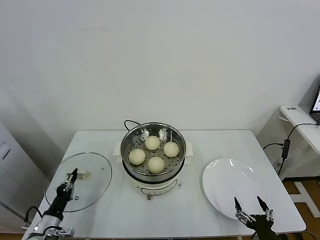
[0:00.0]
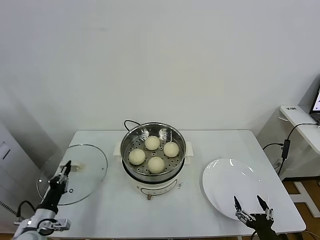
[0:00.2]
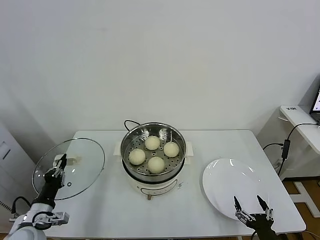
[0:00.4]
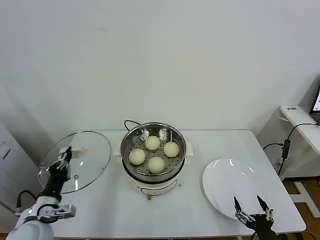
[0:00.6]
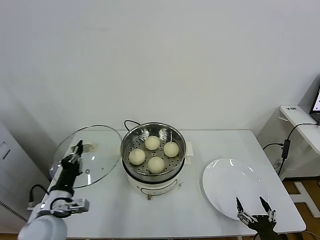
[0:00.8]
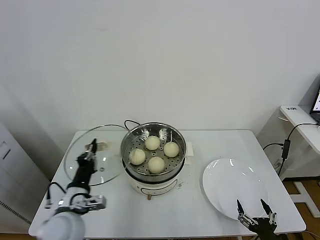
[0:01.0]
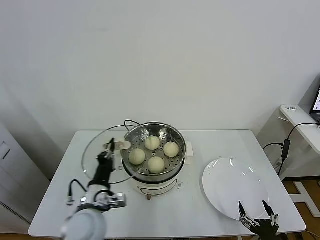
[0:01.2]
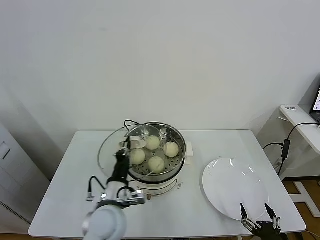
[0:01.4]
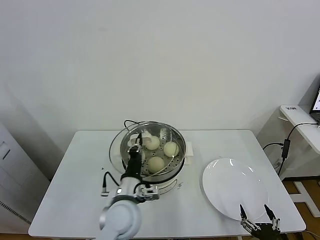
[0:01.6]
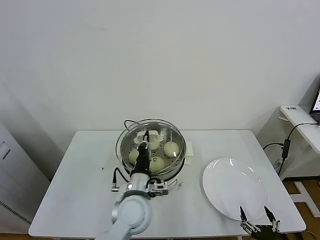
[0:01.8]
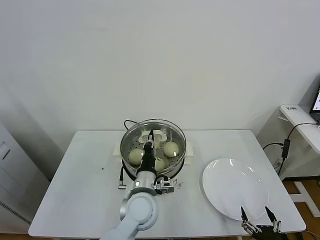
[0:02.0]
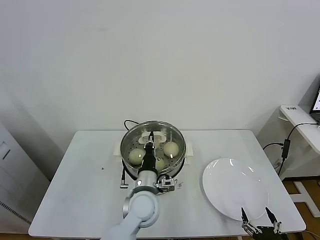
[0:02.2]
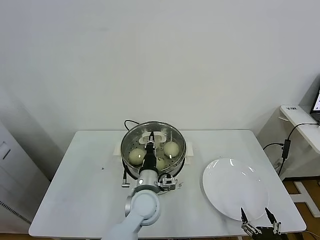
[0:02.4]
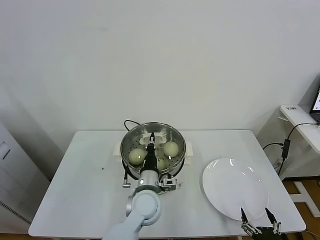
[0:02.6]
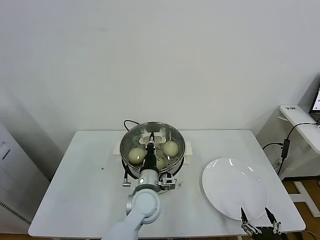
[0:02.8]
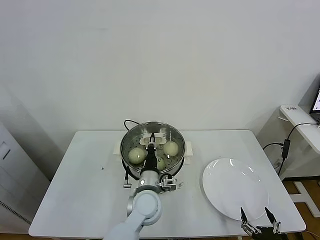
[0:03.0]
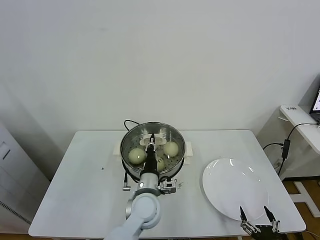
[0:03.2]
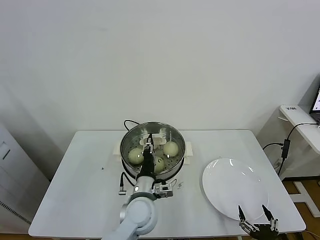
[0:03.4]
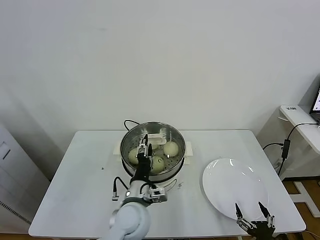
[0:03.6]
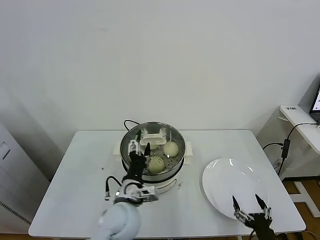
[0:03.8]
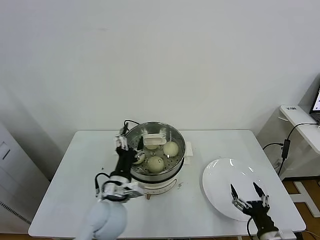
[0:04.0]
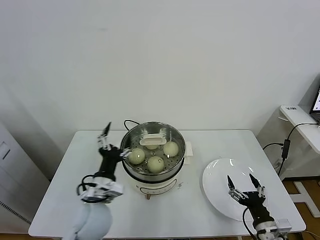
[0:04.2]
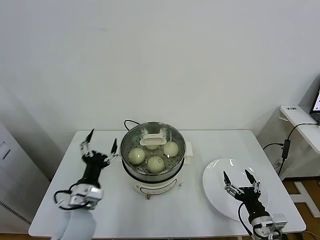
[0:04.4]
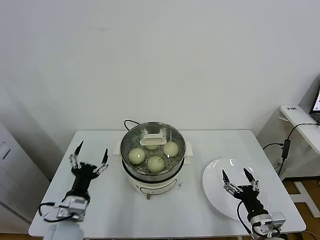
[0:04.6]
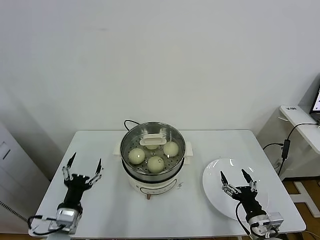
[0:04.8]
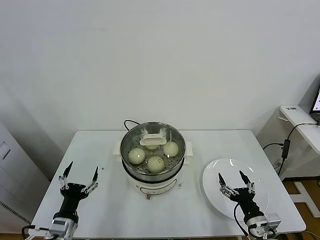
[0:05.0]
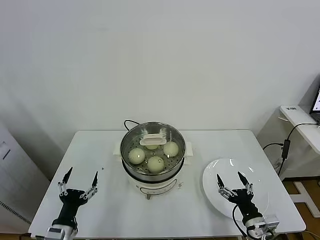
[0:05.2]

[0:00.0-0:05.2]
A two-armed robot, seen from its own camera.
Task of the whole recording: take steamed baozi put them in steamer.
Step, 0:00.0 to 0:04.0: Place the pot lid on the steamer with left gripper.
0:00.0 to 0:01.8: The left gripper heads to the right and upward, covering approximately 35 cm.
0:03.4 to 0:05.2: The right gripper heads forward, covering approximately 10 cm. The left gripper is displaced to the left and backward by roughly 25 cm, and opens.

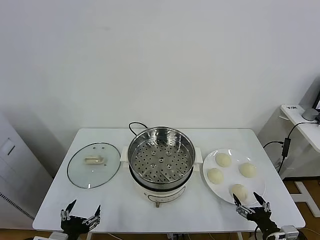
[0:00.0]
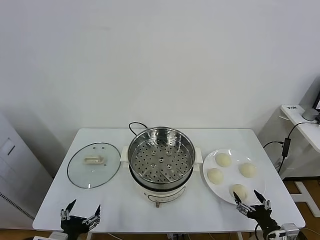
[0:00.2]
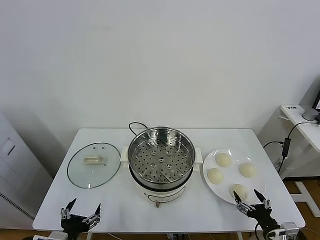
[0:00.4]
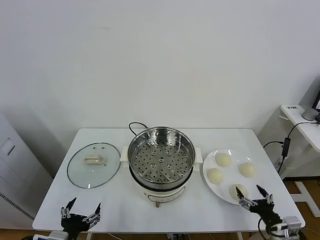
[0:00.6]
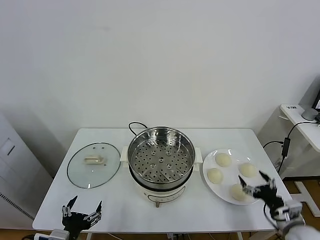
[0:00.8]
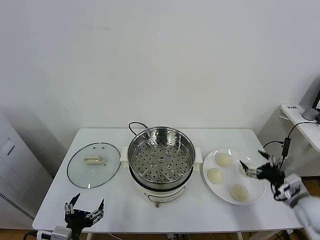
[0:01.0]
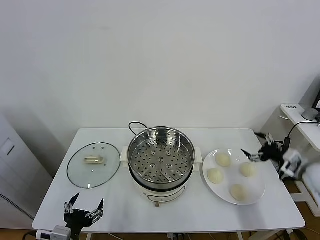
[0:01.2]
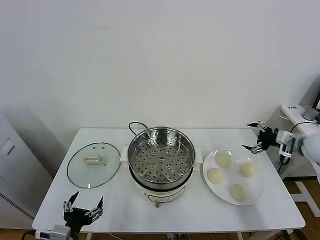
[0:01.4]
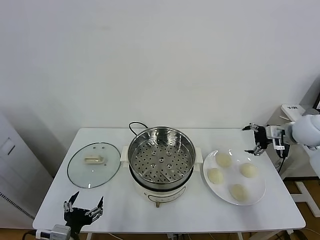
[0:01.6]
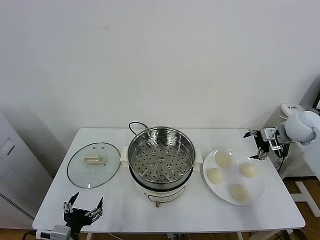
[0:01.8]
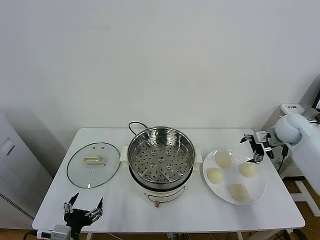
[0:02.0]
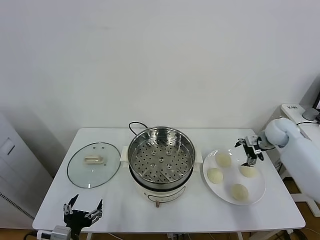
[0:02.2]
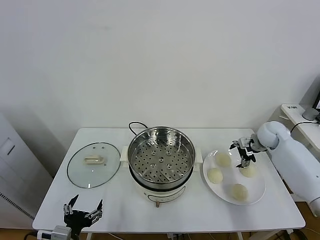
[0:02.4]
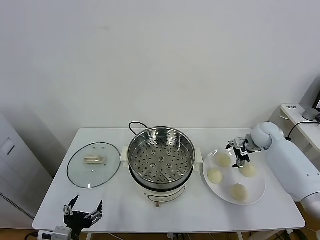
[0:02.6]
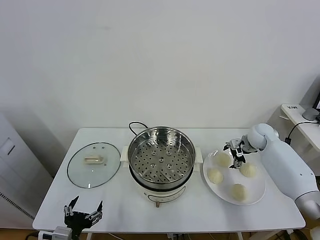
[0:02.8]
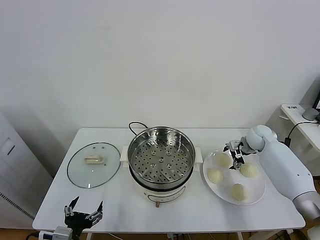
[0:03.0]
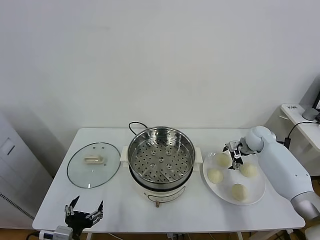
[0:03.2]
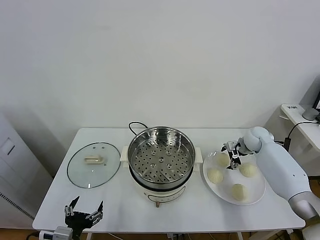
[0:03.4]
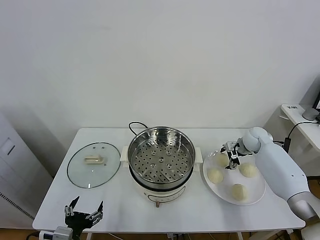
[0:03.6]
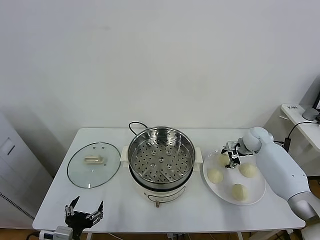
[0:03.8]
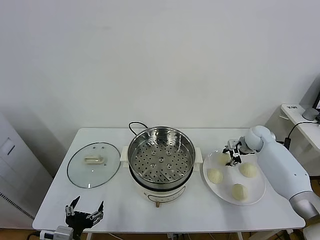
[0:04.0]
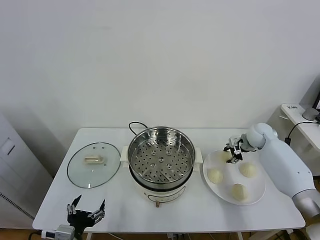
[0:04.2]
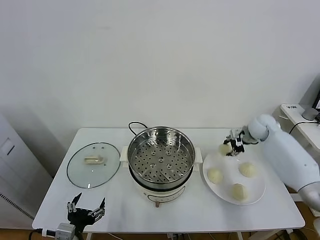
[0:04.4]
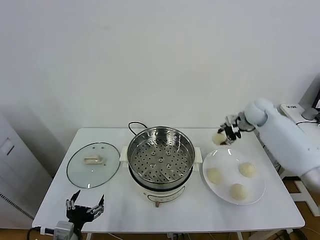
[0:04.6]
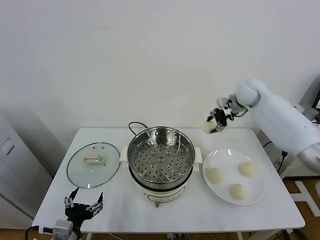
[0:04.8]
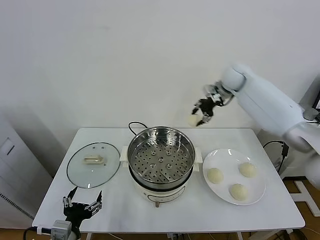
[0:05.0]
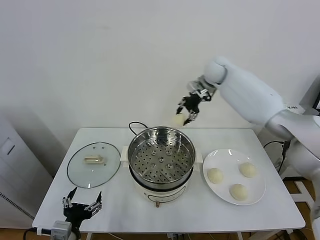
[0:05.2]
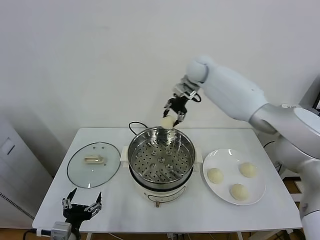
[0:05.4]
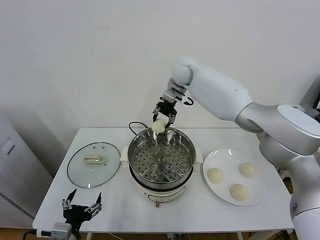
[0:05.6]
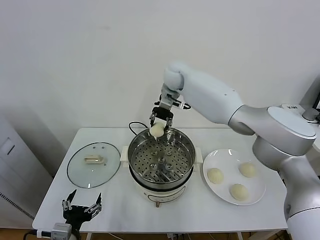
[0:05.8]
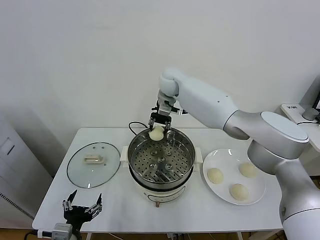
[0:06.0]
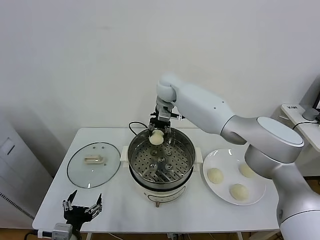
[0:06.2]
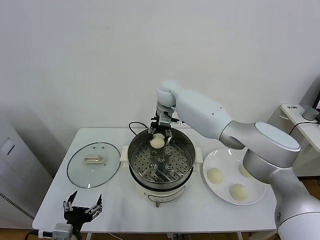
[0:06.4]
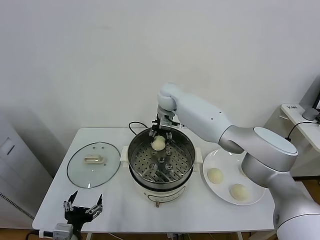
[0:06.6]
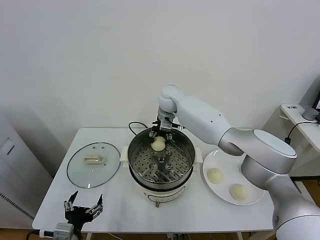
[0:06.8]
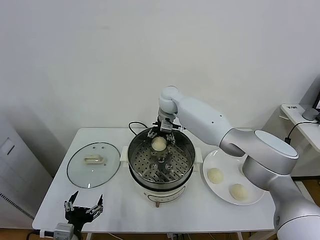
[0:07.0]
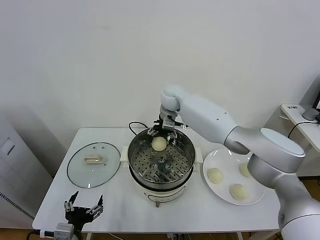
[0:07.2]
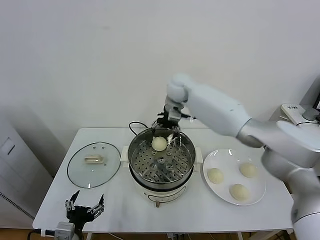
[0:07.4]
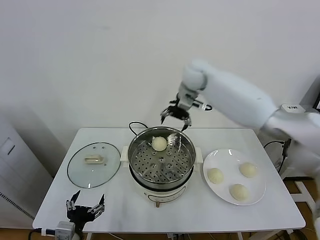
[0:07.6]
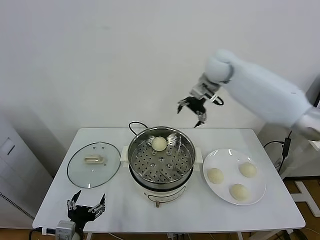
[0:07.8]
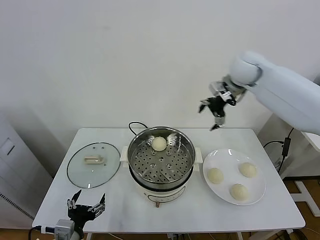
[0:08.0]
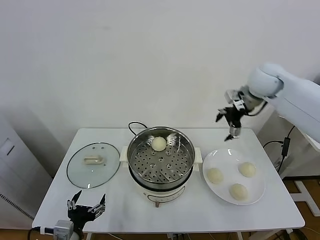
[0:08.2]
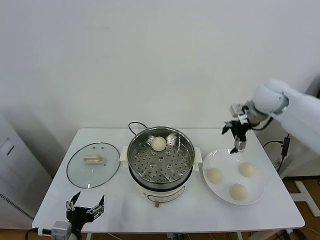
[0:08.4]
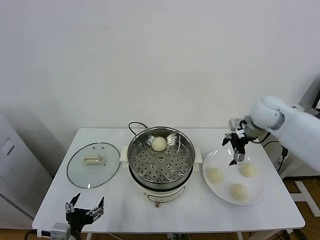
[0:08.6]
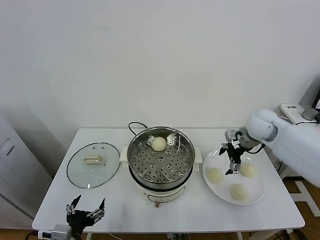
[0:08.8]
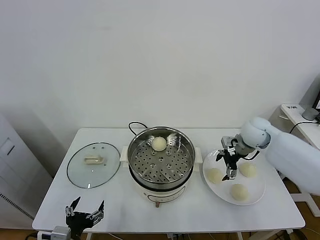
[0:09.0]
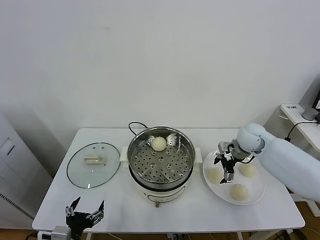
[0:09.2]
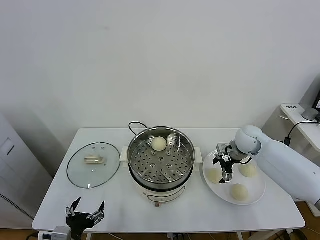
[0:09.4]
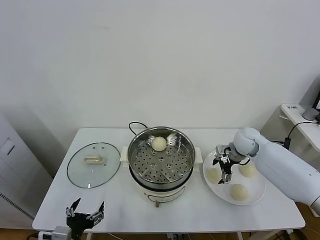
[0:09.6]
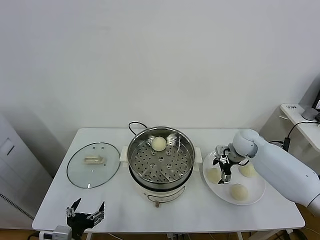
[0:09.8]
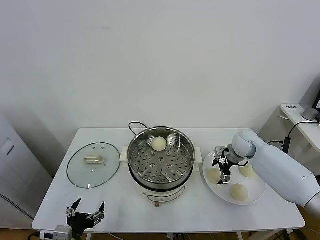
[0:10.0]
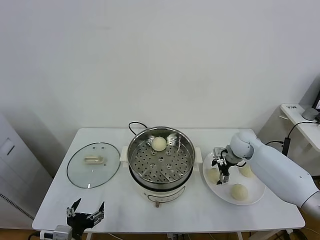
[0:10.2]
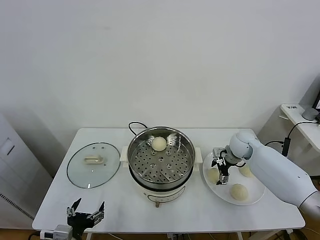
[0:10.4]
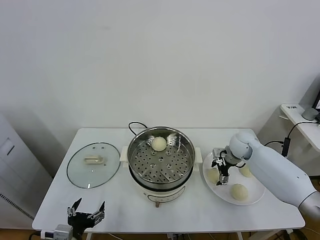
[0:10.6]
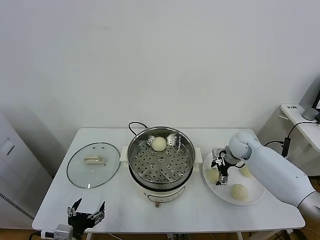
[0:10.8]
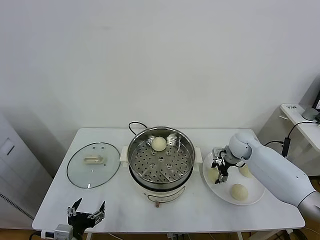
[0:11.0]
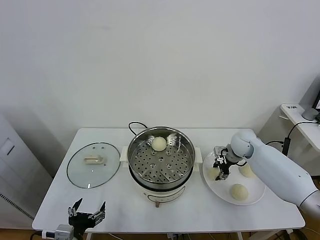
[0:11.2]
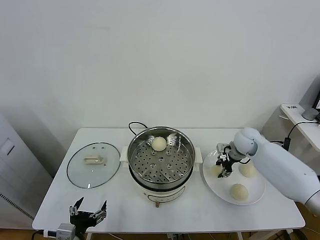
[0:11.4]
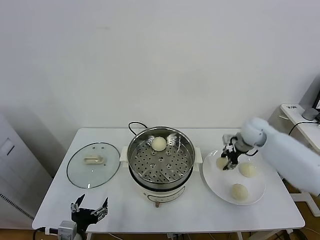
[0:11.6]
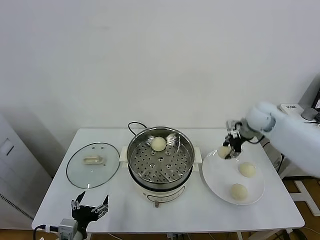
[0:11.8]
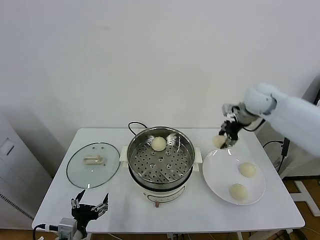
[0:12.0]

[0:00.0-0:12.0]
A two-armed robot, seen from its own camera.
Task of the whole recording: take steamed baozi put them in steamer.
Step, 0:00.0 to 0:03.8: Grasp the baozi in the plate with right gripper.
Step, 0:04.0 to 0:07.2: Place the baozi on the steamer with right gripper.
Step, 0:07.4 to 0:11.0: Grasp the baozi in the plate with right gripper.
0:01.6 to 0:03.0: The right gripper travels downward, forward and to the left by roughly 20 cm.
0:03.0 to 0:04.4: The right gripper heads upward, covering approximately 5 cm, and closes up.
0:04.4 to 0:06.0: The right gripper is displaced to the left and upward by roughly 40 cm.
0:06.0 to 0:07.6: The right gripper shifts approximately 10 cm to the right and upward, and opens.
0:07.6 to 0:09.0: The right gripper travels to the right, downward and backward by approximately 30 cm.
0:09.0 to 0:10.4: The right gripper shifts some 10 cm downward.
0:10.4 to 0:12.0: The right gripper moves upward, roughly 20 cm, and closes up.

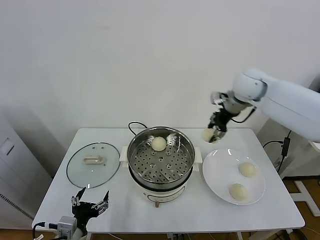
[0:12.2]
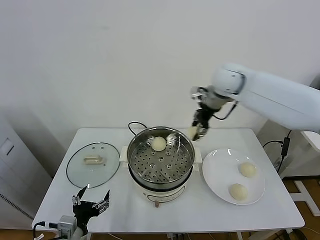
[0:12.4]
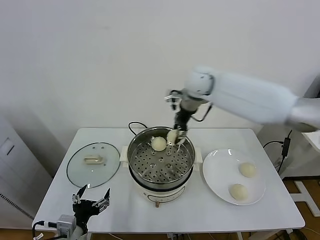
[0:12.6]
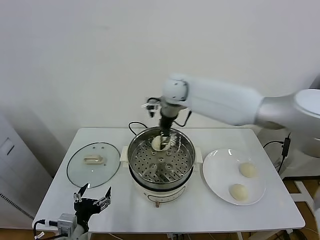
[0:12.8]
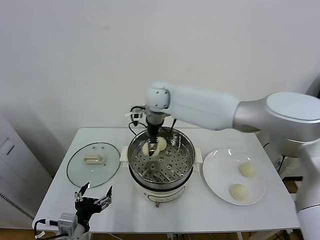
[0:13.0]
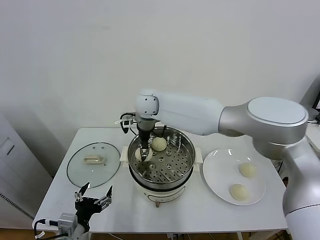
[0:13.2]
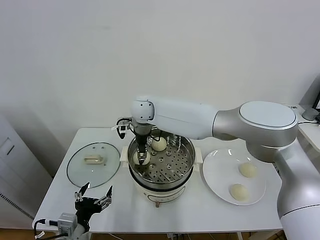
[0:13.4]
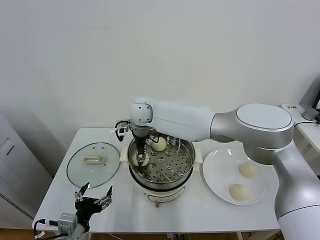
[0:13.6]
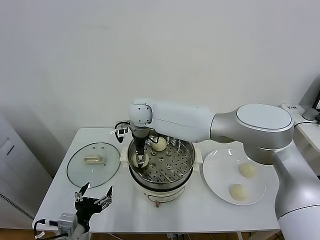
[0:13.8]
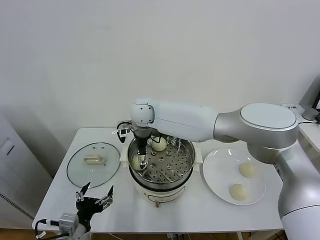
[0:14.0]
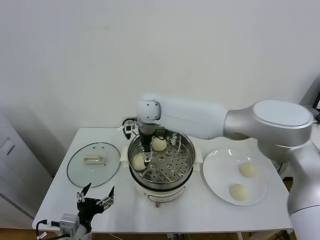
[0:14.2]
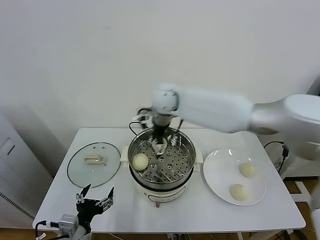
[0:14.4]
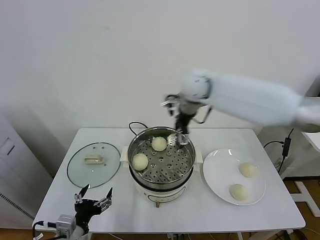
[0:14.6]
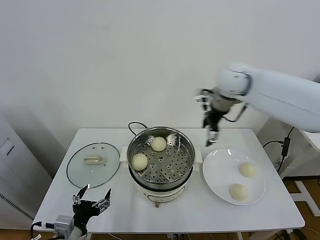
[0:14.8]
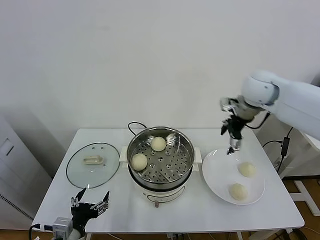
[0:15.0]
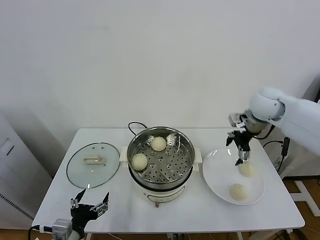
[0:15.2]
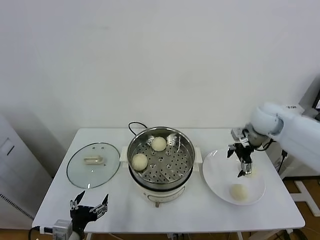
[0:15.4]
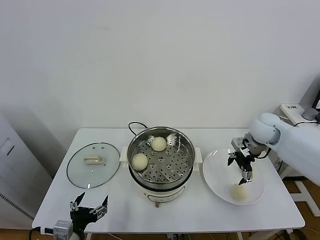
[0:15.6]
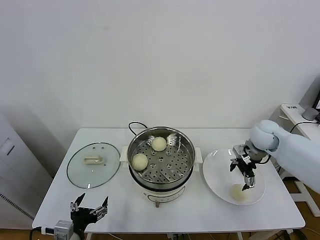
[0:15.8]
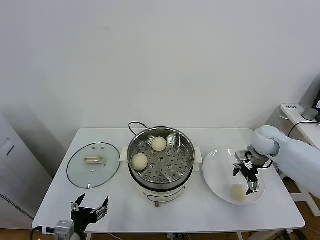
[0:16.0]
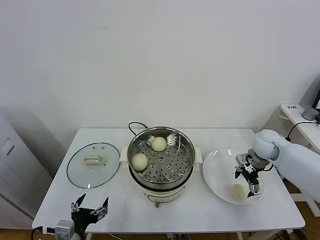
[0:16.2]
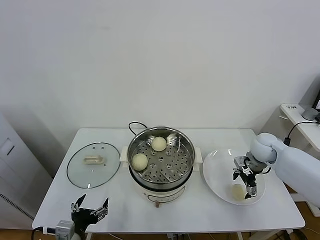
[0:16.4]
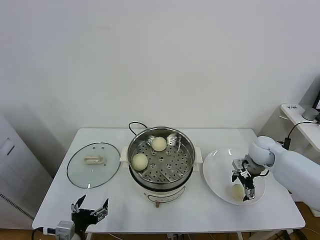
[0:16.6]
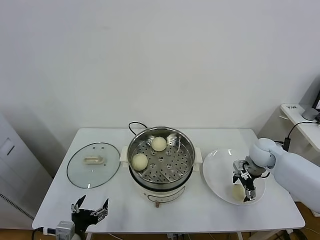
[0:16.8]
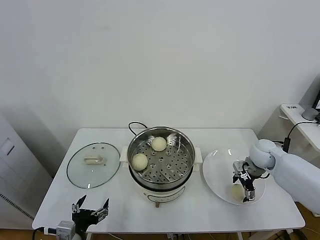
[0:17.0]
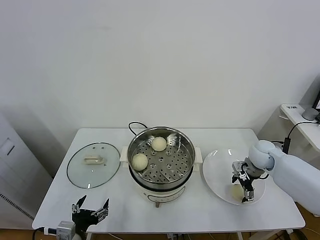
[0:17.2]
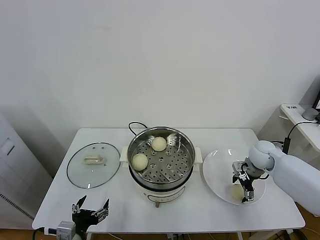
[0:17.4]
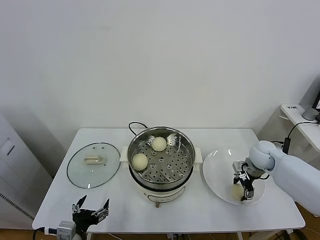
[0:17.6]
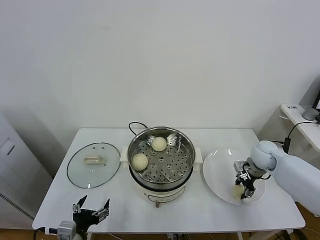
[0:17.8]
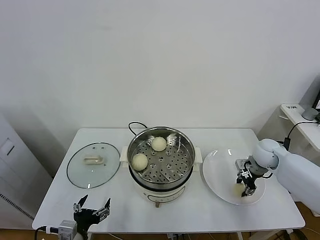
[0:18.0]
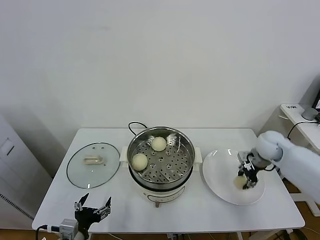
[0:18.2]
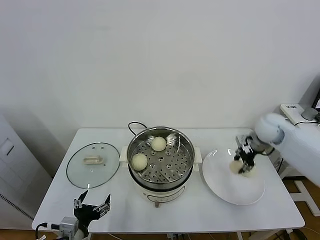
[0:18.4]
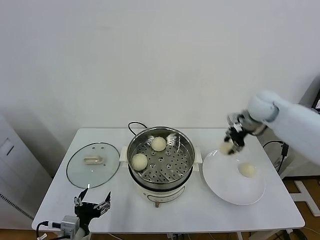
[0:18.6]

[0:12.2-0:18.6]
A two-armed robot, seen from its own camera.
Task of the whole recording: take steamed baozi put them in steamer.
Step, 0:12.2 to 0:14.0: Place the baozi on the steamer with right gripper.
Step, 0:14.4 to 0:17.8: Grasp the baozi in the plate with right gripper.
0:12.2 to 0:13.8: The right gripper heads to the left, covering roughly 30 cm, and opens up.
0:13.8 to 0:15.4: The right gripper is displaced to the right by approximately 40 cm, and opens.
0:15.4 to 0:17.0: The right gripper moves downward, roughly 15 cm.
0:17.0 to 0:18.6: The right gripper travels upward by some 20 cm, and closes.
